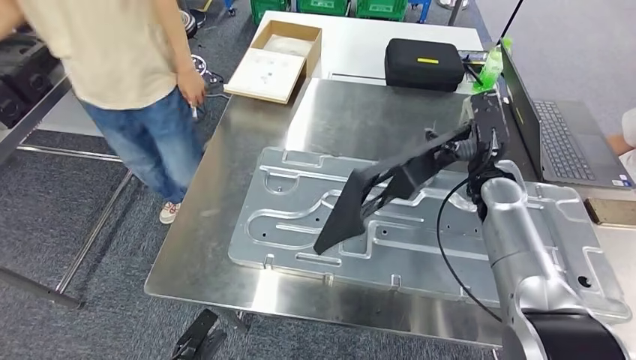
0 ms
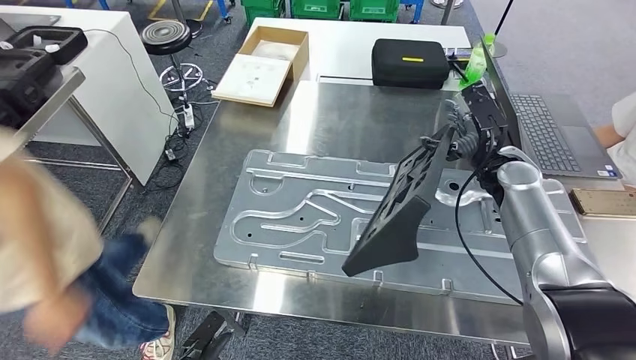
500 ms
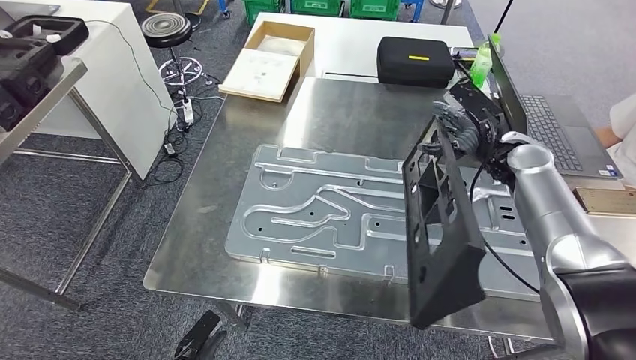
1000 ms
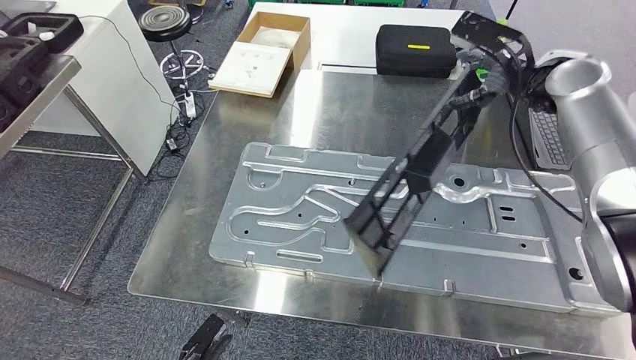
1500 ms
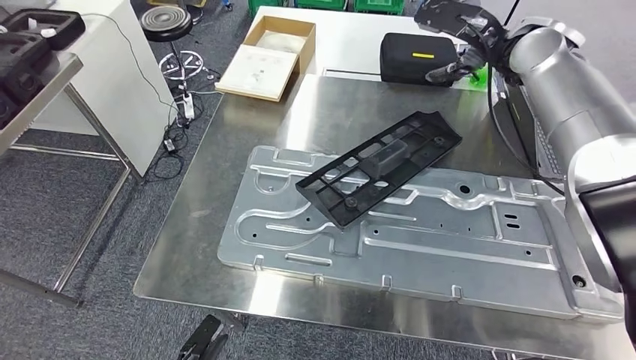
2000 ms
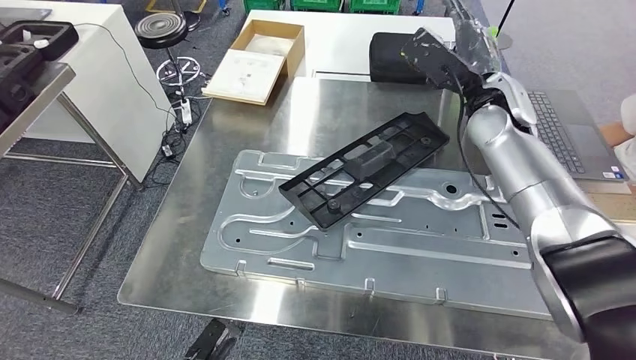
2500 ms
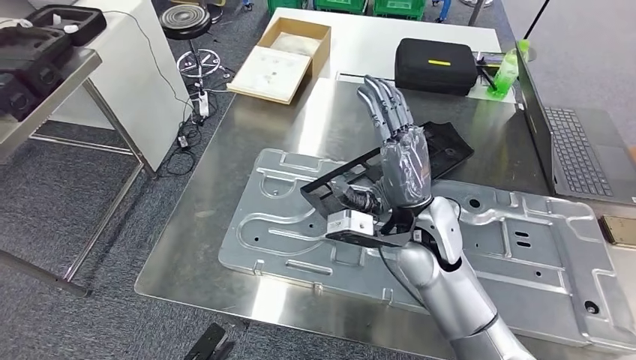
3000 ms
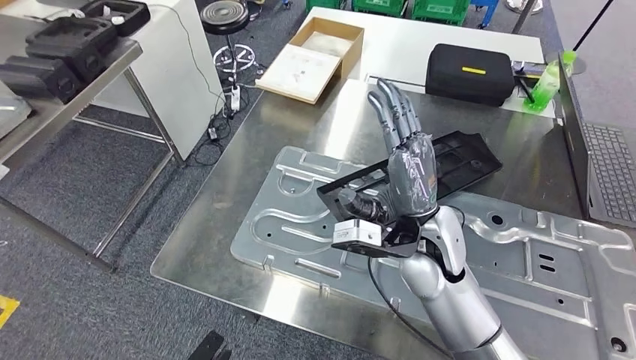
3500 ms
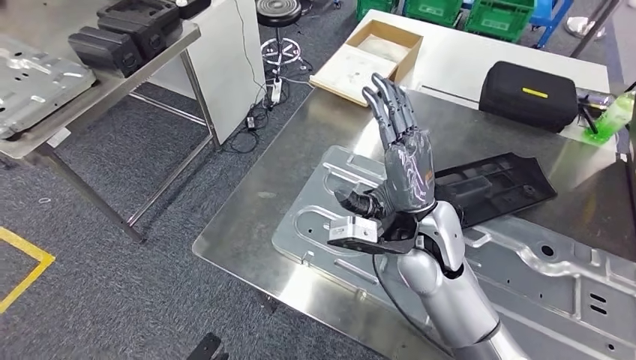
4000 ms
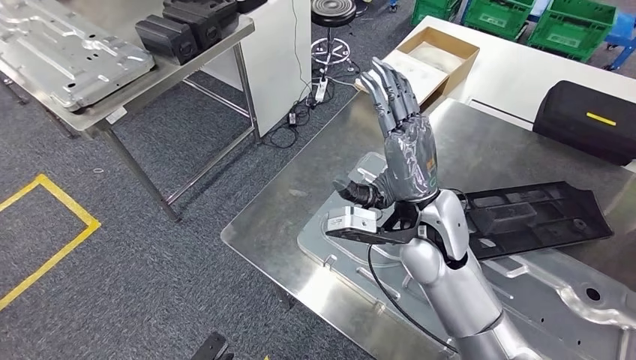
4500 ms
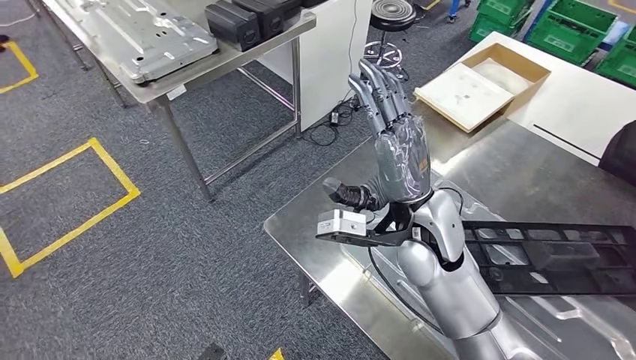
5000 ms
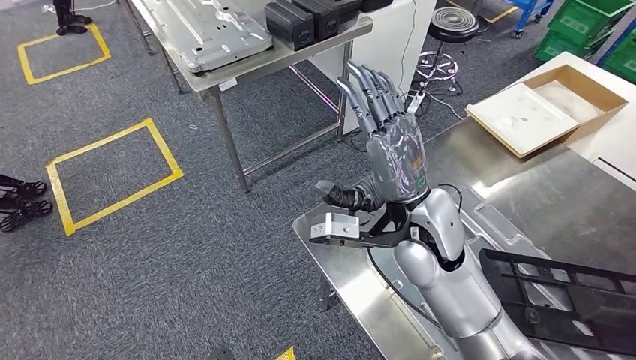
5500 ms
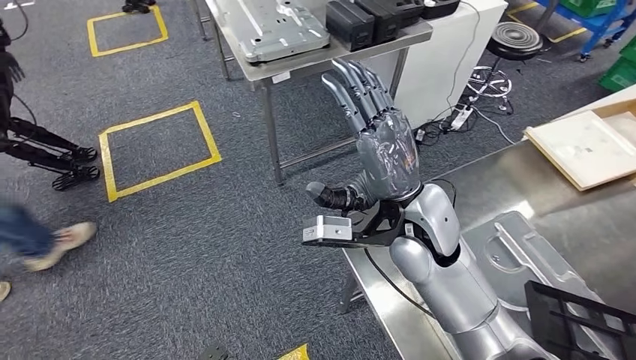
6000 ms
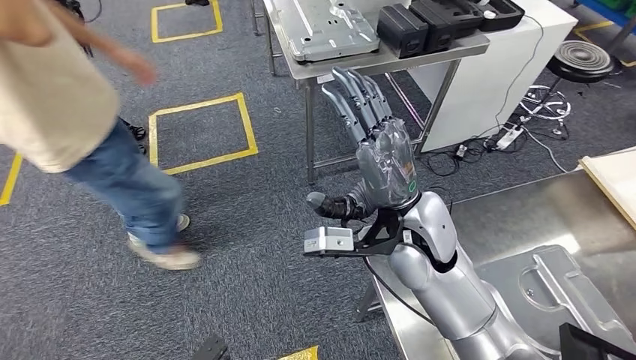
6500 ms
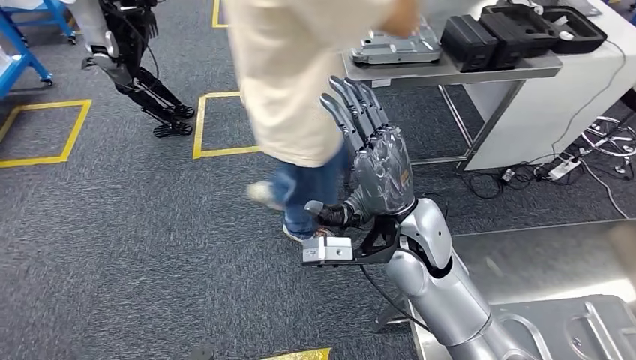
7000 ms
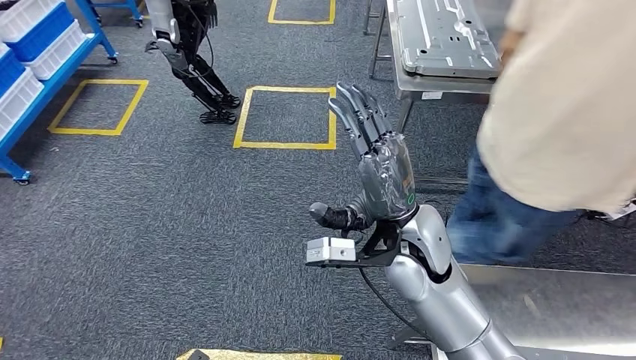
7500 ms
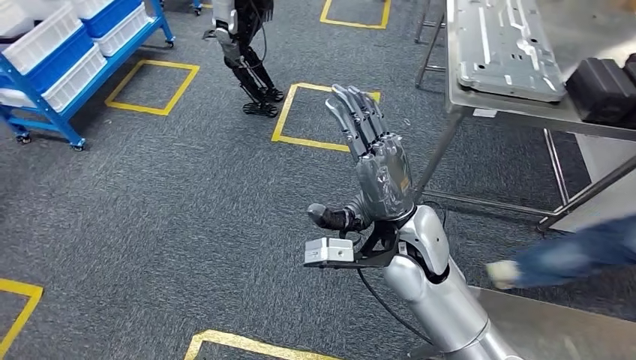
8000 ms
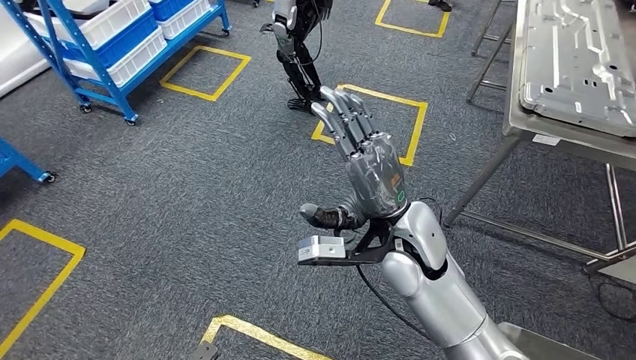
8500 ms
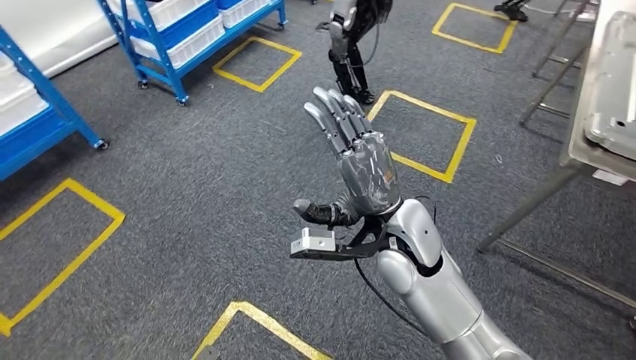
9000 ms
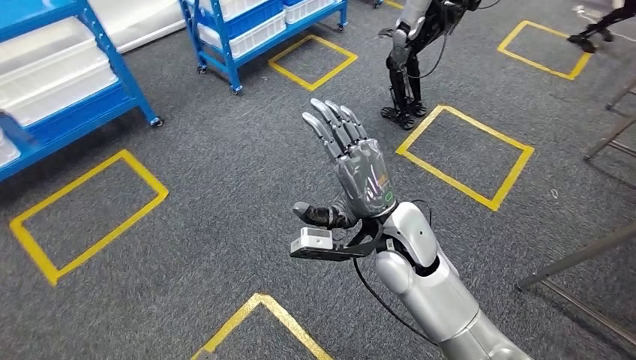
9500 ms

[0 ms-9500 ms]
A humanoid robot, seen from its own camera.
Step, 0 ms to 4000 ms: Insert the large material into the corresponding slot on the workbench.

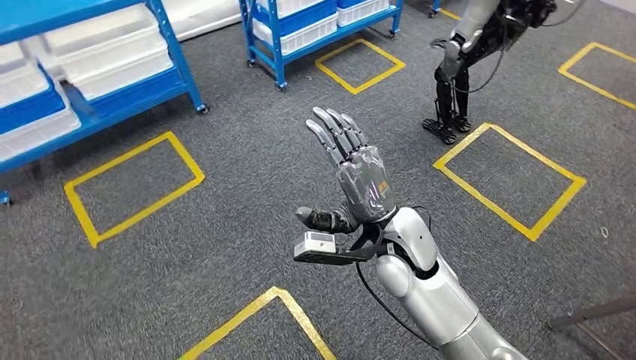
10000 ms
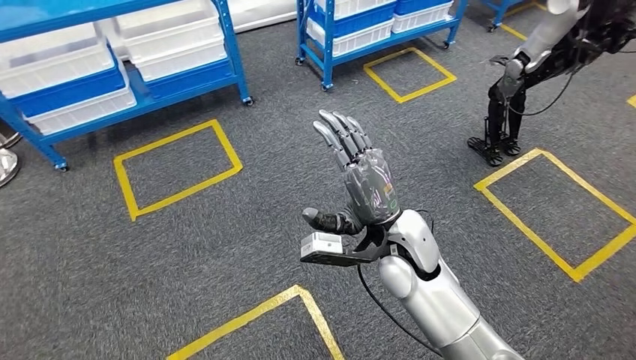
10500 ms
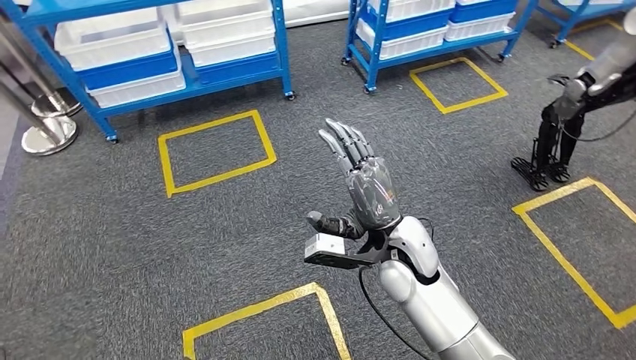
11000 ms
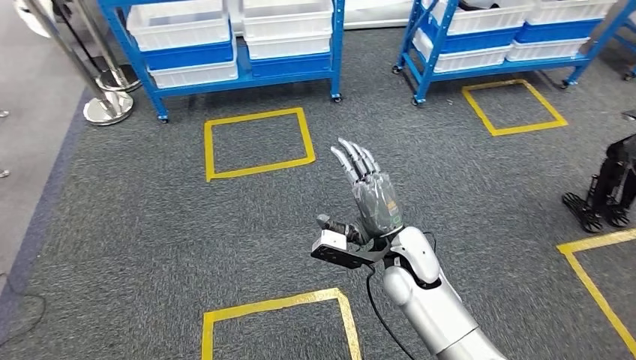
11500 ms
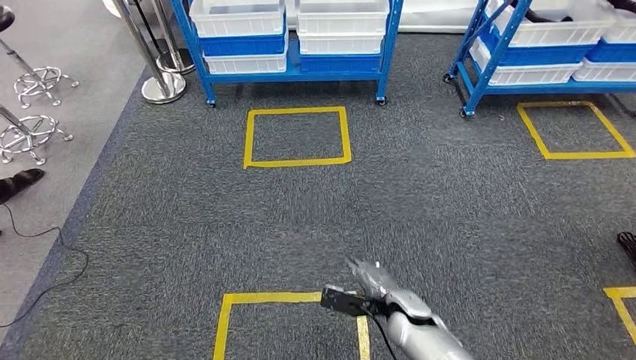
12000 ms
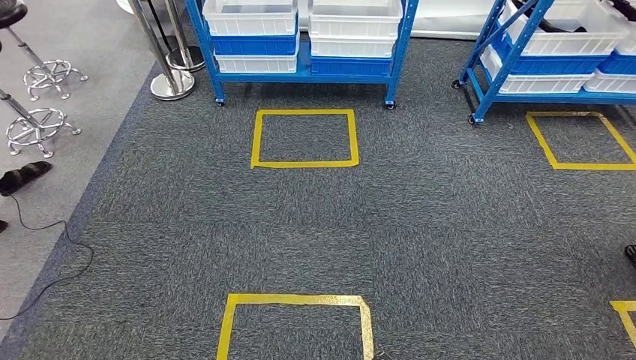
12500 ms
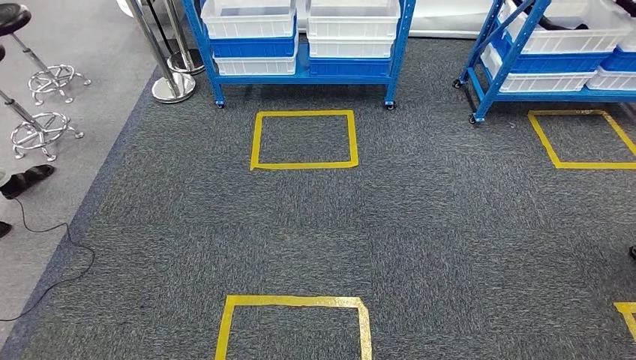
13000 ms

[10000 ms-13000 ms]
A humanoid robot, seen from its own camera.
Step, 10000 ms to 13000 ms: Move to the initial position of the shelf.
